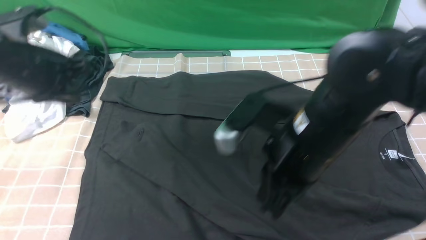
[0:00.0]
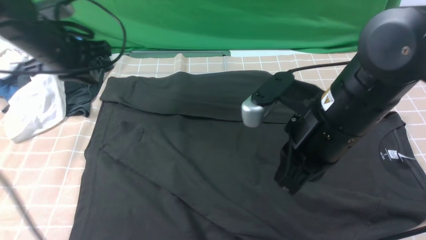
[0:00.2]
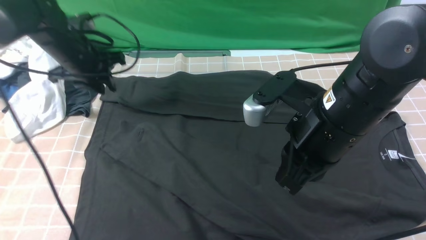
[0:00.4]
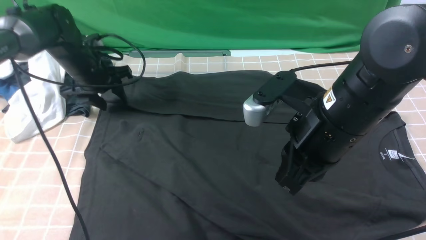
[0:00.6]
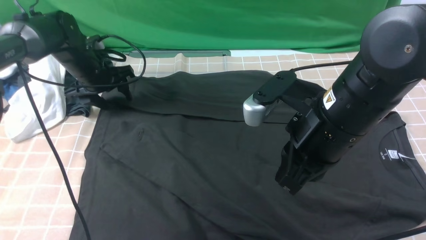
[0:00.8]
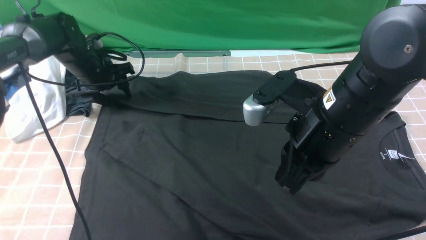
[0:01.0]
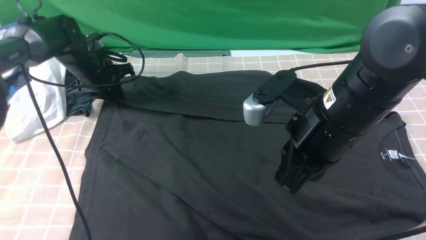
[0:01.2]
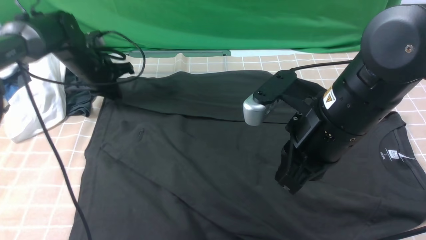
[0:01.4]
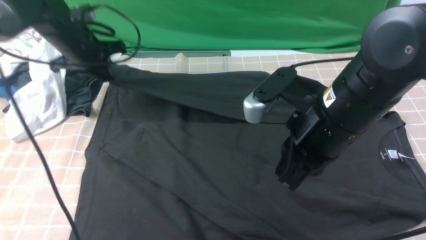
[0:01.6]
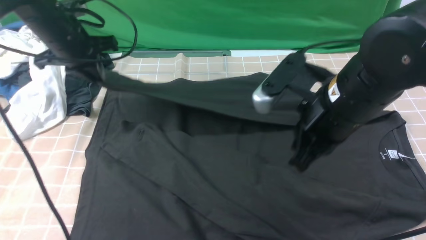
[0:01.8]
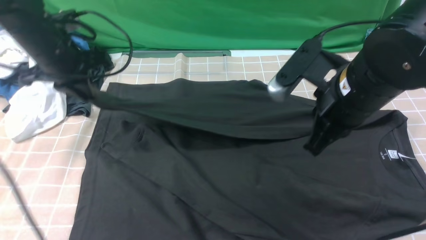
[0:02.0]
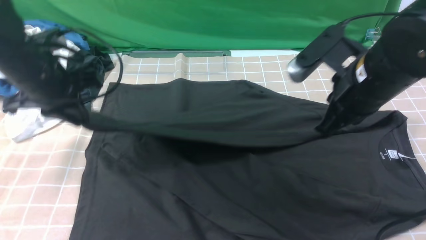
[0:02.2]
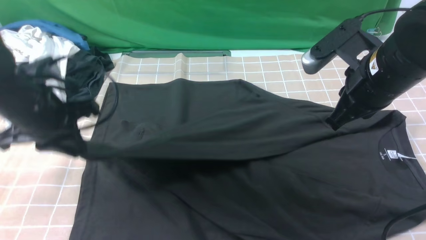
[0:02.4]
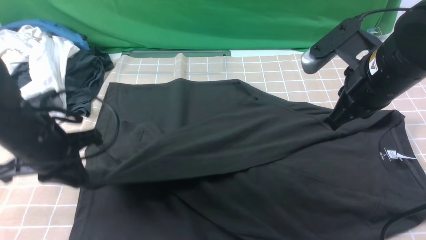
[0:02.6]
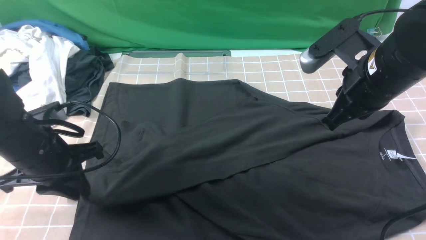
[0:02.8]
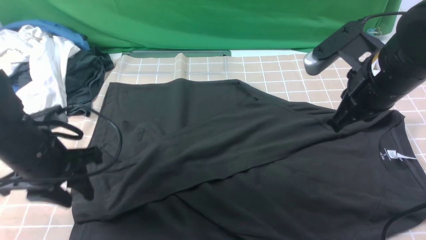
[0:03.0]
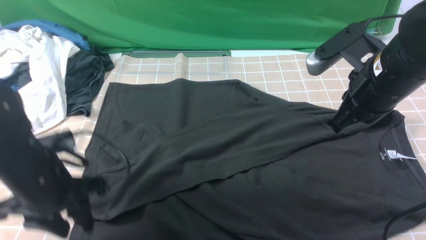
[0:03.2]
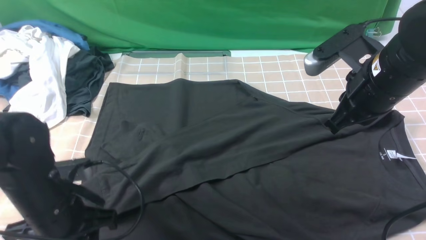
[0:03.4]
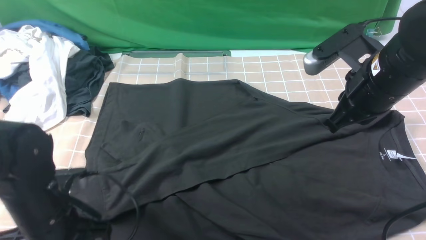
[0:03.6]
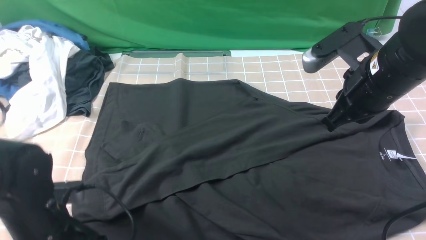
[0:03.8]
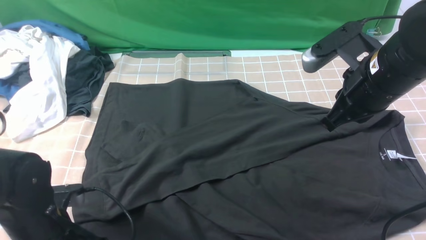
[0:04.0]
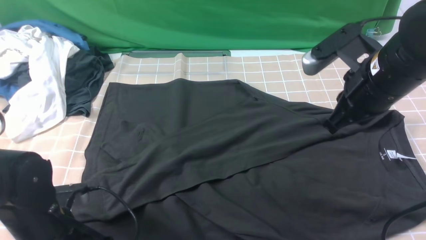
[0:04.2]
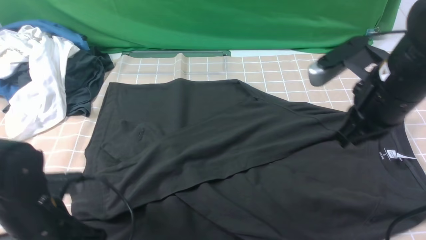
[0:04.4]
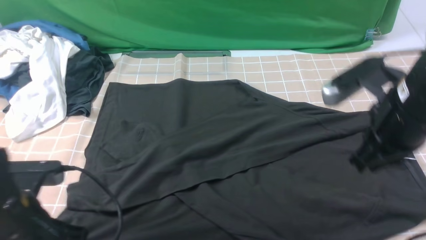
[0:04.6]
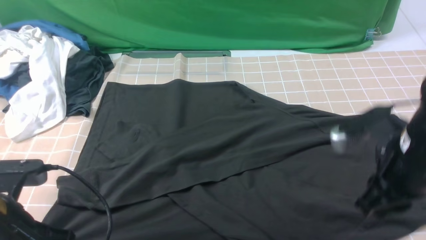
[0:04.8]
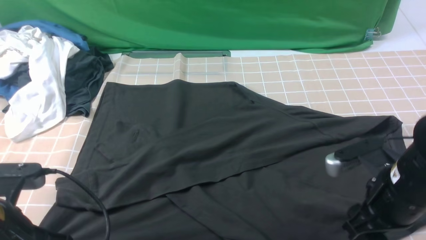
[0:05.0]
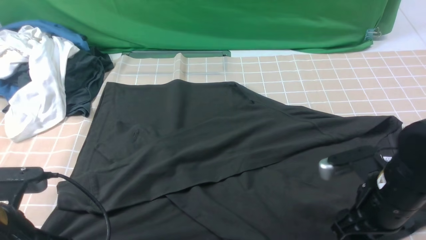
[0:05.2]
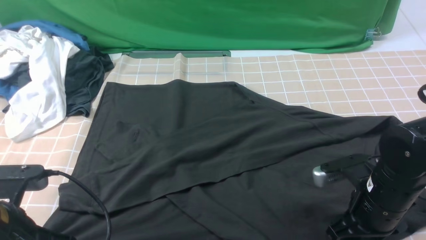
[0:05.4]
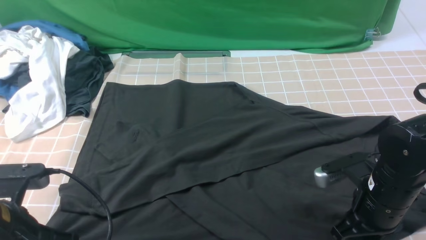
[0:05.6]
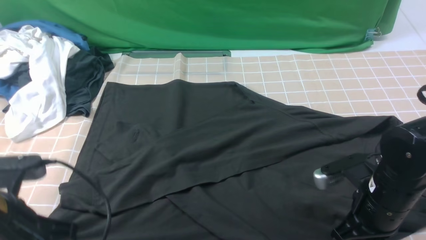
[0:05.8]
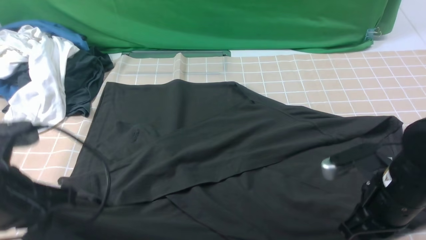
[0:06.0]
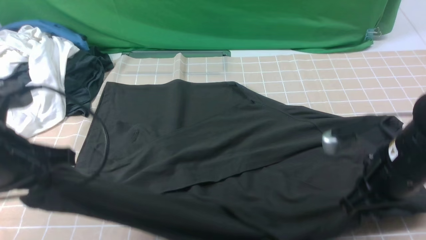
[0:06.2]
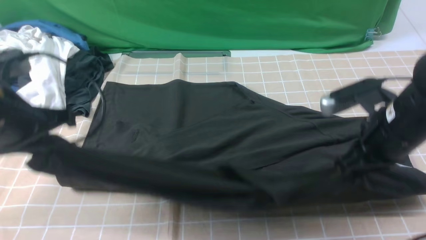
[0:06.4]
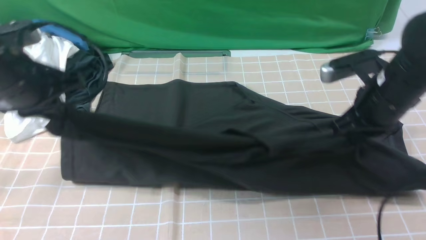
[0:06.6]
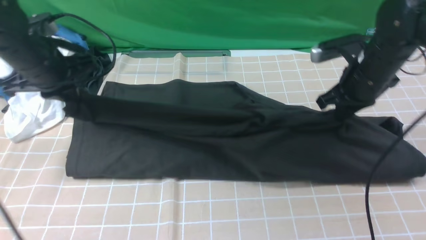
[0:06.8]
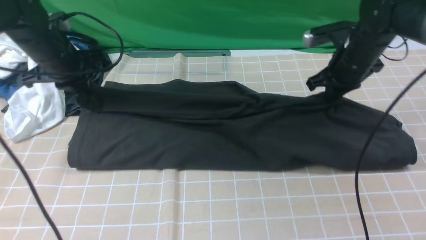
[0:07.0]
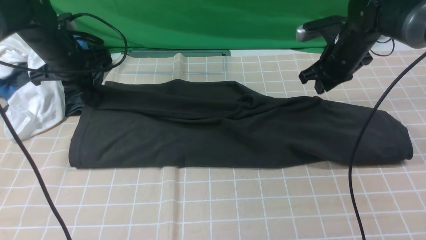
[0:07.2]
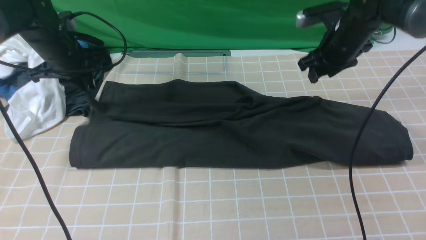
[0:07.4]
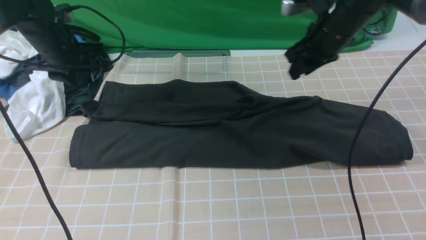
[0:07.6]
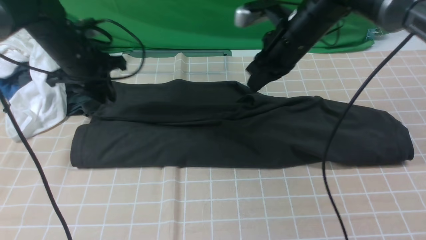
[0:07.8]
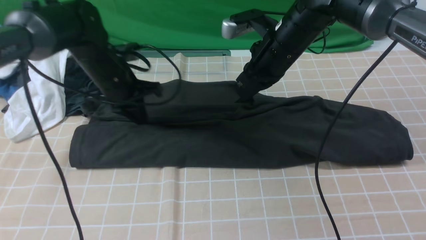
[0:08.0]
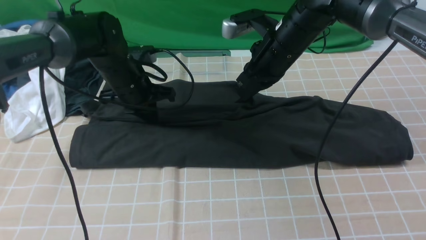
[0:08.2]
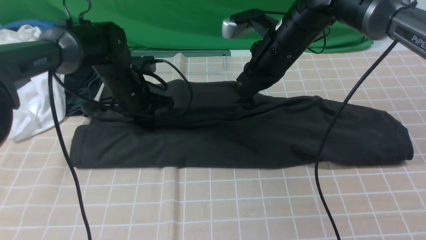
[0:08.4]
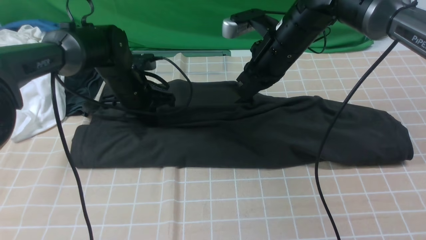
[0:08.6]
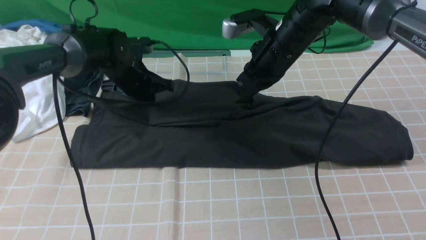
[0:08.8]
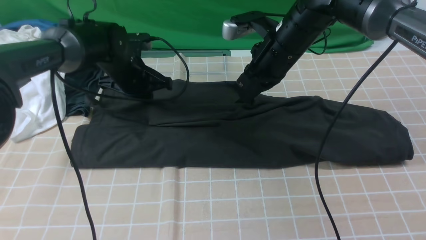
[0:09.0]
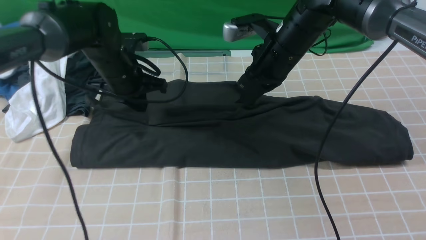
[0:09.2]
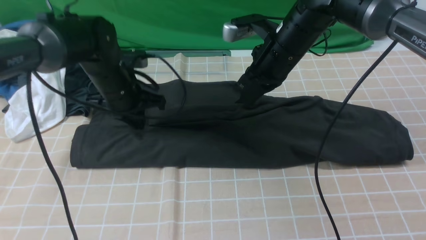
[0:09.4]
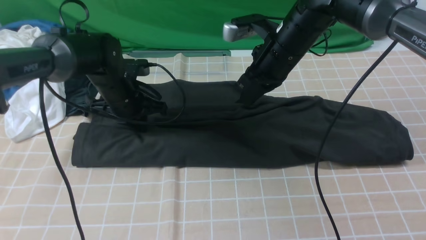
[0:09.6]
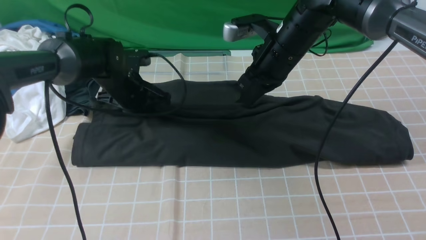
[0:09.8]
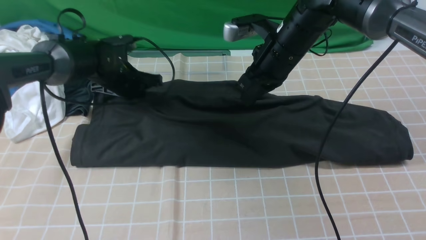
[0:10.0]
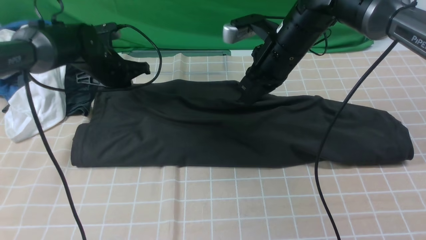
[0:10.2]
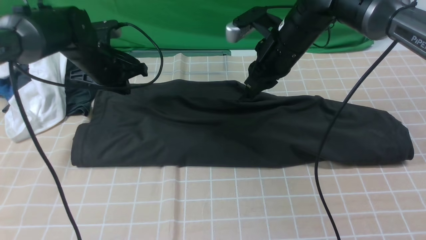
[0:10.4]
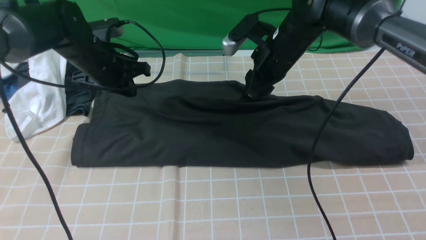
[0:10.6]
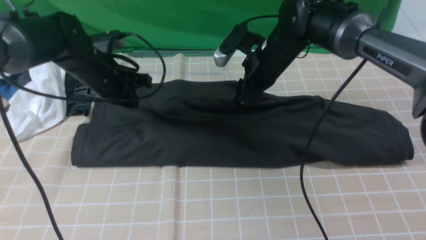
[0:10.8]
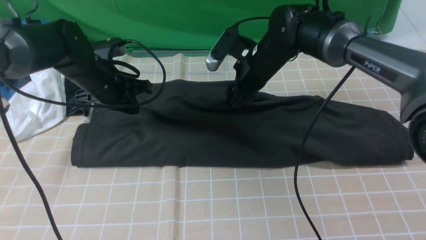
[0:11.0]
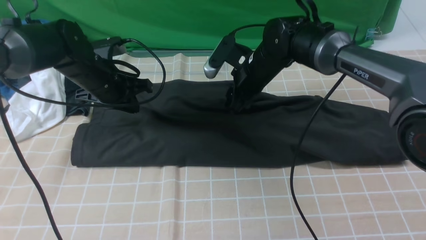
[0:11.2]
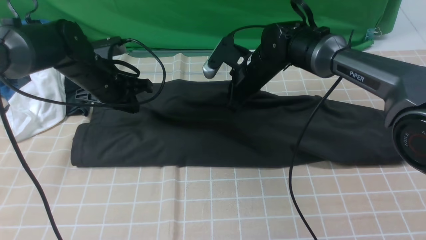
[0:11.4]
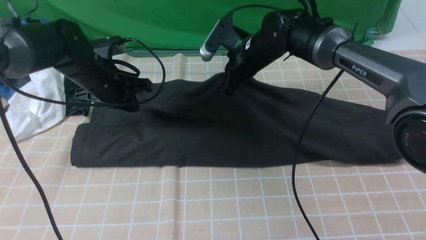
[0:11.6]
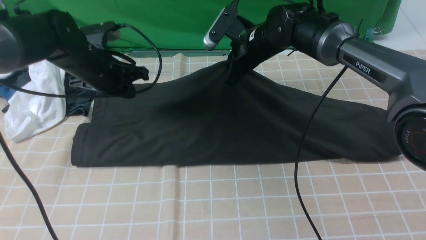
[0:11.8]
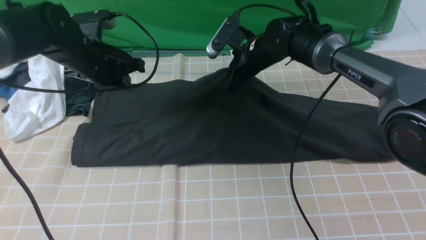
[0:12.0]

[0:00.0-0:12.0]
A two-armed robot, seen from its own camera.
Step, 0:01.4 to 0:03.0: use the left arm to drag and drop the cuff onto the cuff closest to the left arm.
Step, 0:03.2 to 0:05.6: use both arms simultaneously to clamp the lower edge of the clothing fabric.
0:00.0 to 0:01.6: The left gripper shifts some 15 cm forward and downward, and opens, then closes again.
0:01.6 to 0:03.0: The right gripper moves to the right, approximately 5 cm. The left gripper shifts some 20 cm backward, and opens.
0:03.0 to 0:04.4: The left gripper shifts some 5 cm backward, and closes its fingers.
0:04.4 to 0:06.0: The left gripper moves upward, approximately 10 cm. Meanwhile the right gripper goes approximately 10 cm downward and backward, and opens, then closes again.
0:06.0 to 0:07.6: The two grippers go about 25 cm forward. The left gripper opens, while the right gripper opens.
0:07.6 to 0:09.0: The right gripper is displaced to the left by roughly 5 cm, and closes up; the left gripper heads to the right, covering some 10 cm, and closes.
0:09.0 to 0:10.4: The right gripper opens.
0:10.4 to 0:12.0: The right gripper goes some 10 cm forward and downward, and opens, then closes once more.

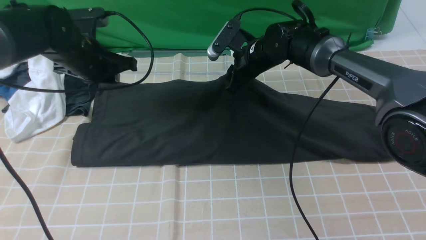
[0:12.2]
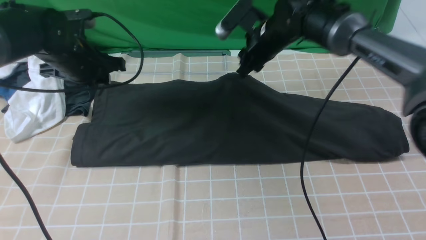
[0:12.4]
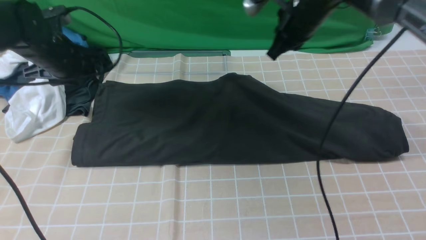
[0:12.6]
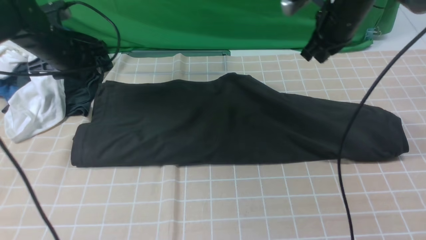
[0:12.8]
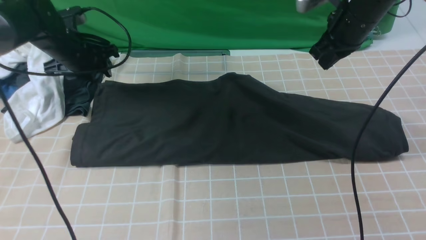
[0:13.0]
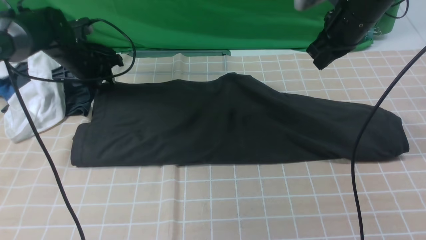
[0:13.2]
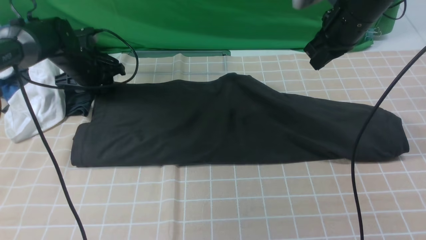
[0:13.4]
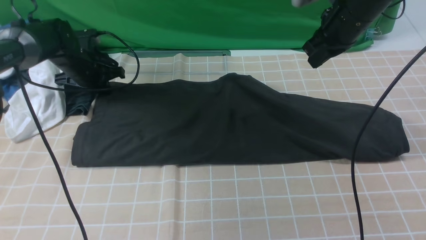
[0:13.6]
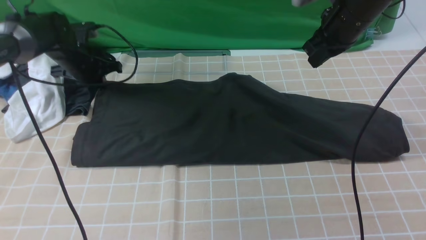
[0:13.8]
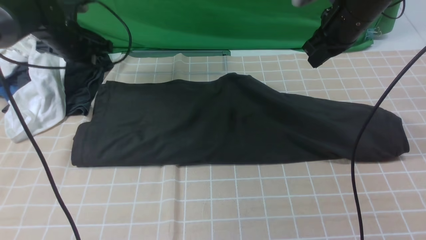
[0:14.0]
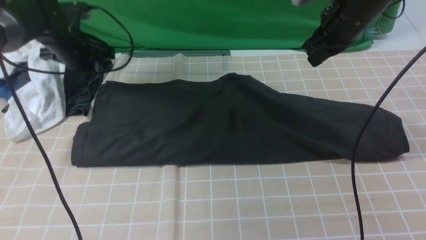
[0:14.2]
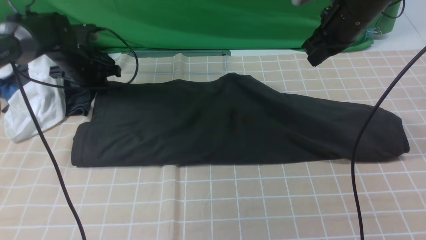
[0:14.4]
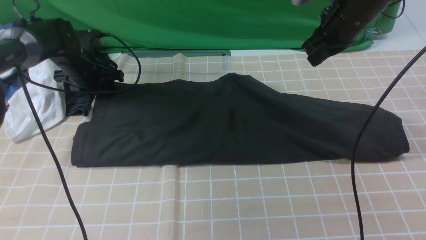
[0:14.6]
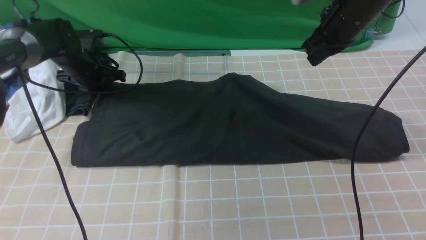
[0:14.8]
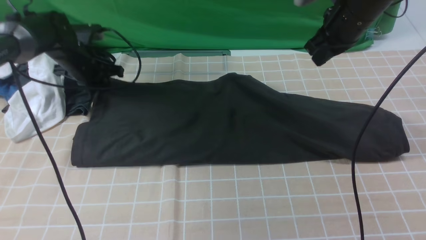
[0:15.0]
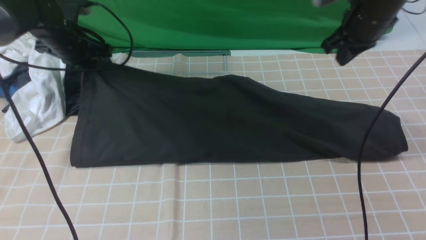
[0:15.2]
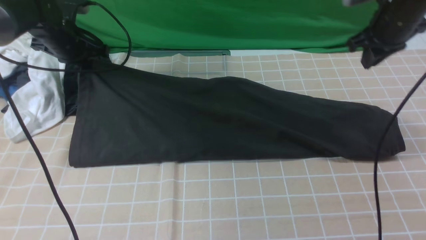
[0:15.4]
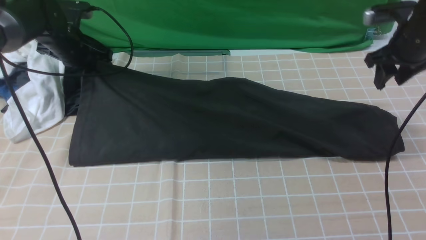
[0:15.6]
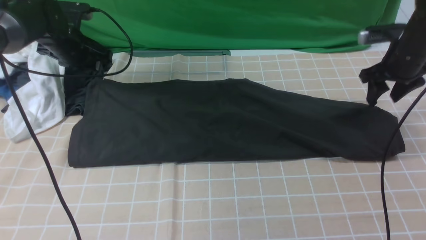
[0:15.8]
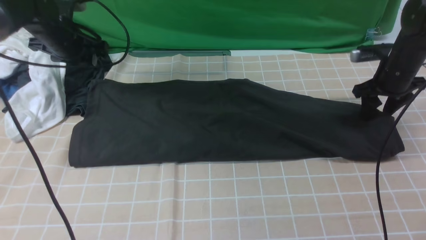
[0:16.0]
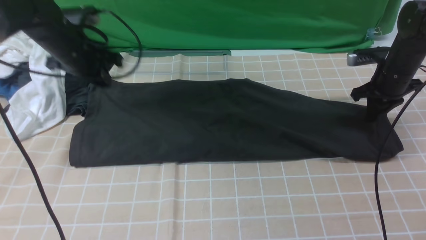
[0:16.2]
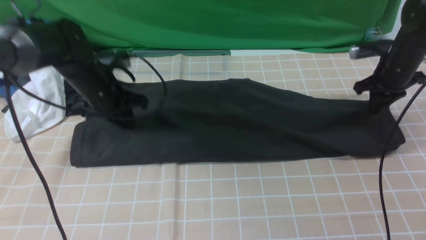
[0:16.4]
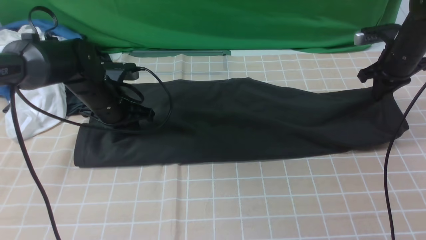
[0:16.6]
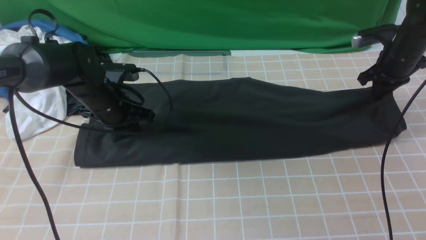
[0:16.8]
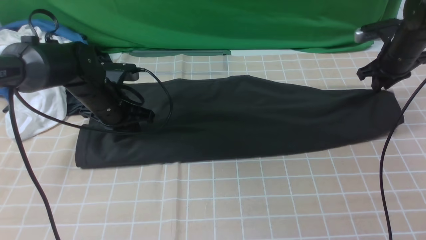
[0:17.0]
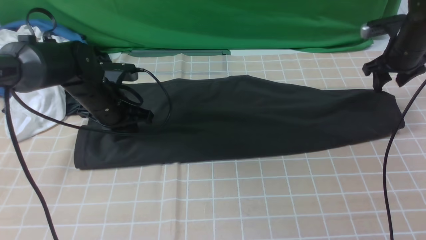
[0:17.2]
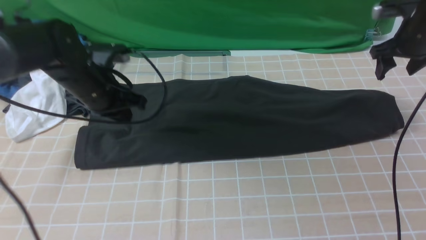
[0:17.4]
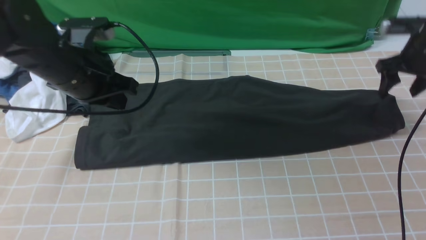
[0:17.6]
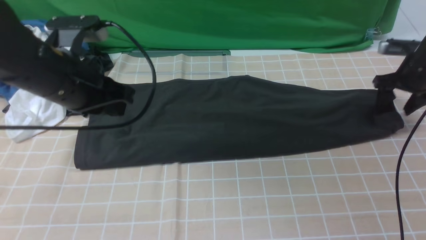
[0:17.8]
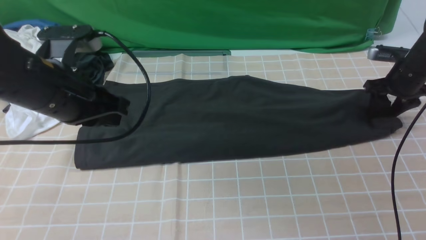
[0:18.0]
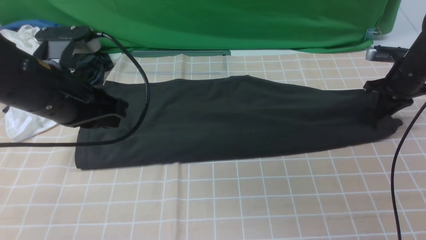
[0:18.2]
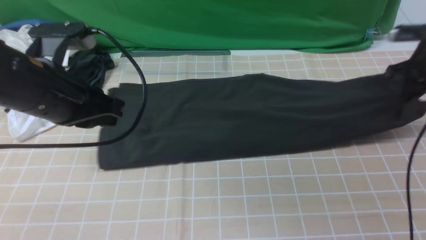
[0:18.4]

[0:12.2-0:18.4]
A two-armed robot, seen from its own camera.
Step, 0:12.2 to 0:15.8: use both arms to drag the lower edge of the fabric forward and fold it over the upper edge.
Step, 0:16.0 to 0:18.0: use the right arm to clamp the right edge of the fabric.
0:12.2 to 0:13.8: The right gripper moves to the right and upward, roughly 15 cm, and closes, while the left gripper travels forward and to the left by some 10 cm, and opens, then closes again.
0:13.8 to 0:15.4: The left gripper opens and closes again; the right gripper goes roughly 10 cm to the right, and opens up.
0:15.4 to 0:16.8: The right gripper shifts some 10 cm downward and to the right, and opens and closes again. The left gripper moves backward, to the right and downward, approximately 15 cm, and opens, then closes once more.
0:16.8 to 0:18.4: The right gripper moves roughly 5 cm, and opens, then closes once more. Meanwhile the left gripper is displaced upward and backward by some 20 cm.
